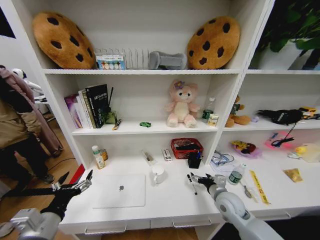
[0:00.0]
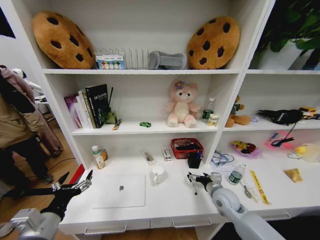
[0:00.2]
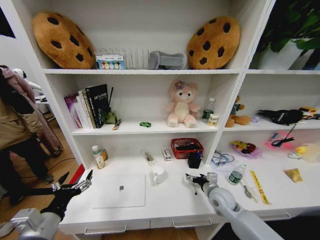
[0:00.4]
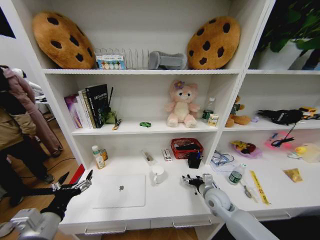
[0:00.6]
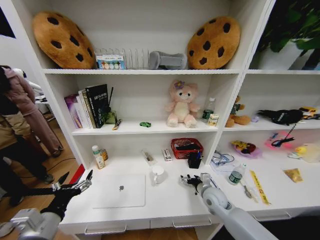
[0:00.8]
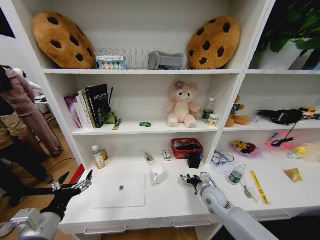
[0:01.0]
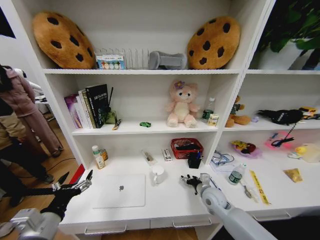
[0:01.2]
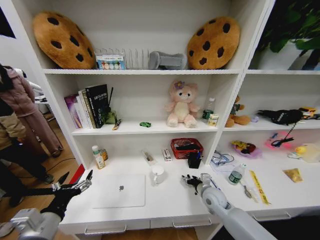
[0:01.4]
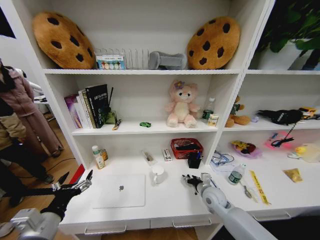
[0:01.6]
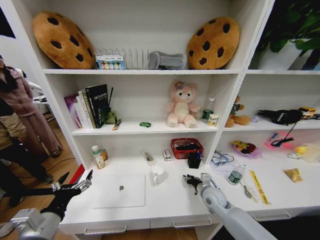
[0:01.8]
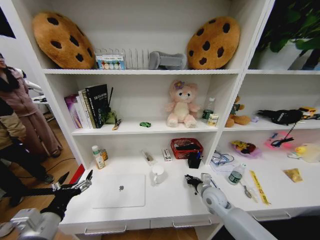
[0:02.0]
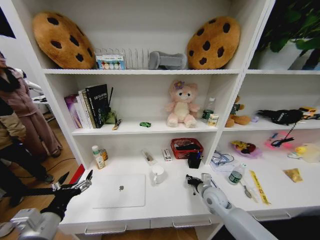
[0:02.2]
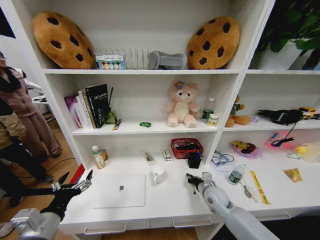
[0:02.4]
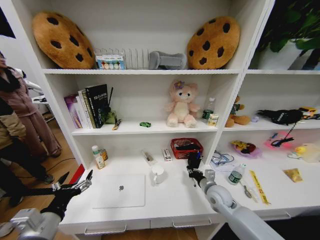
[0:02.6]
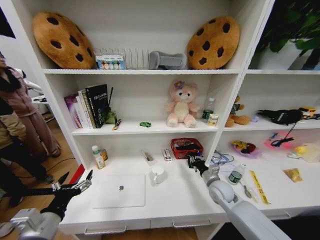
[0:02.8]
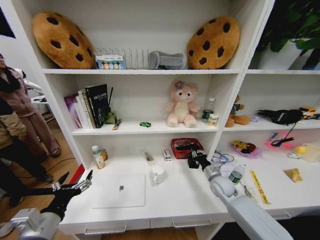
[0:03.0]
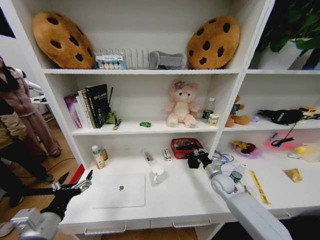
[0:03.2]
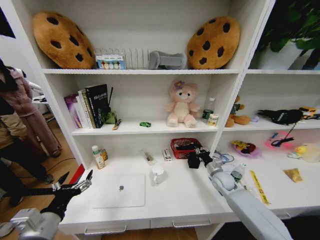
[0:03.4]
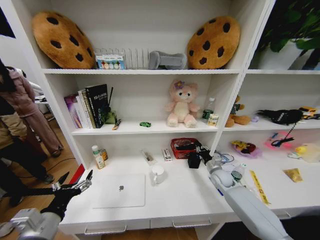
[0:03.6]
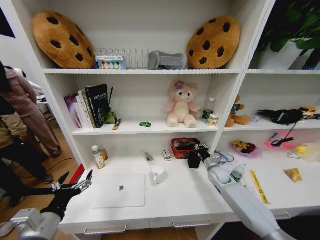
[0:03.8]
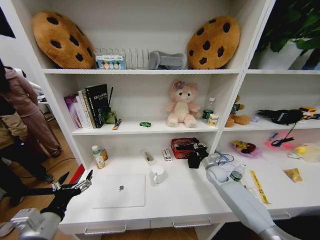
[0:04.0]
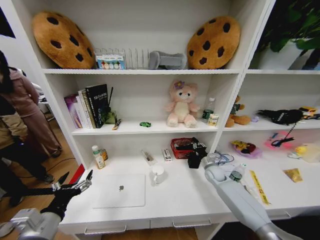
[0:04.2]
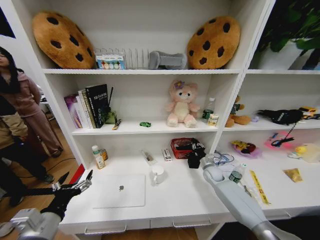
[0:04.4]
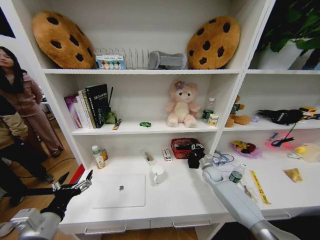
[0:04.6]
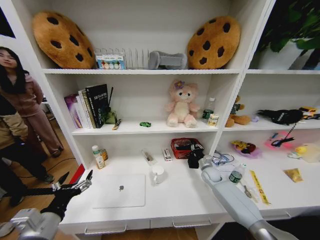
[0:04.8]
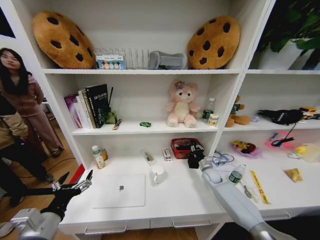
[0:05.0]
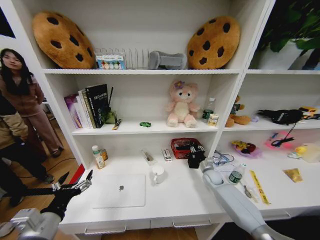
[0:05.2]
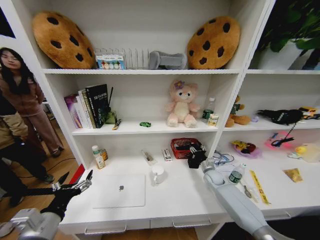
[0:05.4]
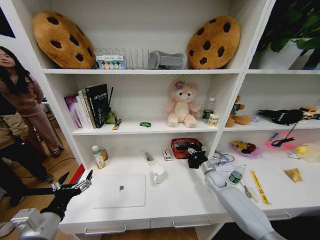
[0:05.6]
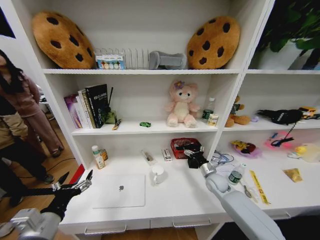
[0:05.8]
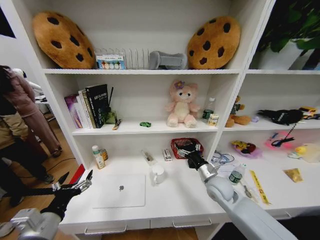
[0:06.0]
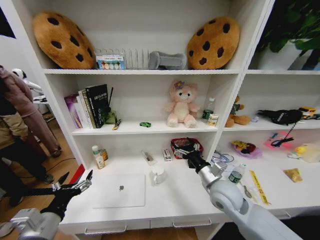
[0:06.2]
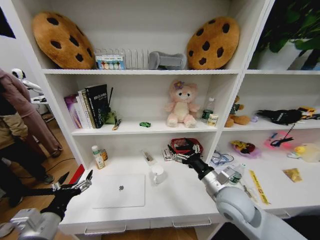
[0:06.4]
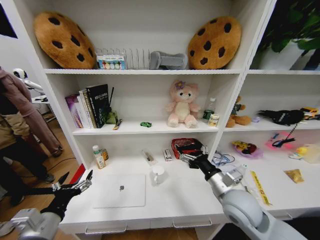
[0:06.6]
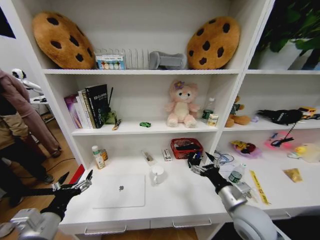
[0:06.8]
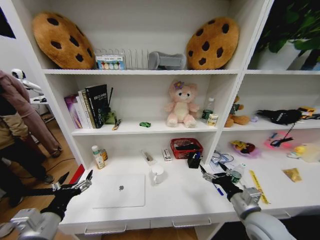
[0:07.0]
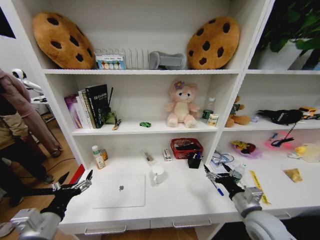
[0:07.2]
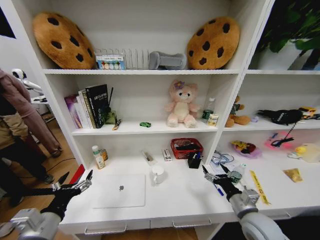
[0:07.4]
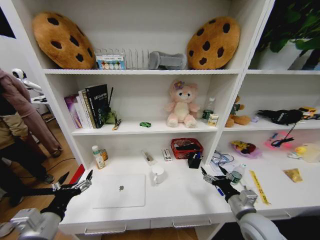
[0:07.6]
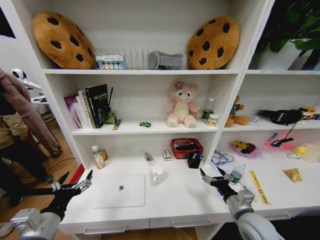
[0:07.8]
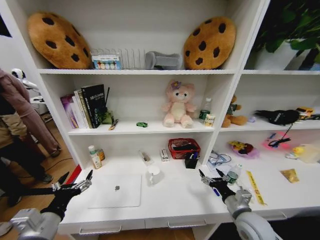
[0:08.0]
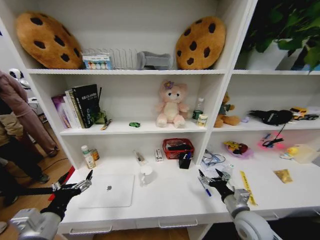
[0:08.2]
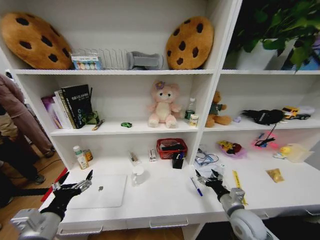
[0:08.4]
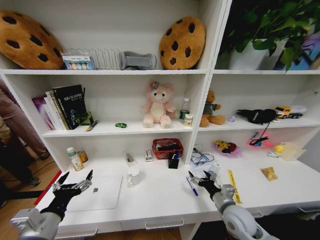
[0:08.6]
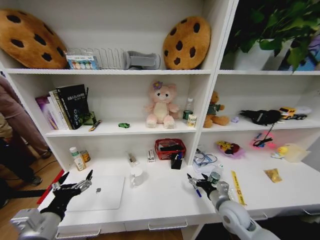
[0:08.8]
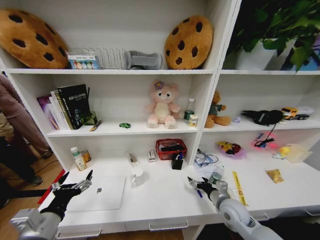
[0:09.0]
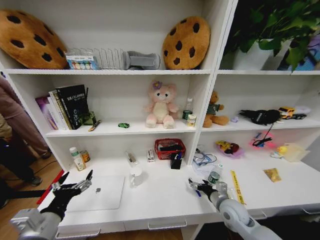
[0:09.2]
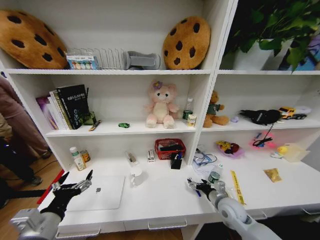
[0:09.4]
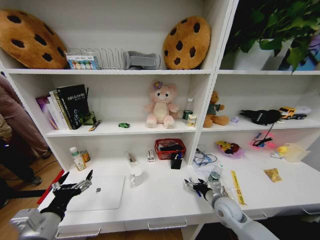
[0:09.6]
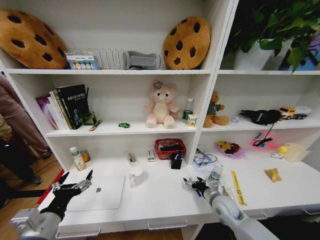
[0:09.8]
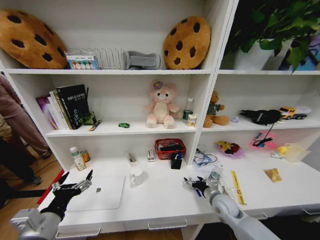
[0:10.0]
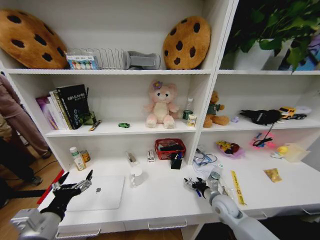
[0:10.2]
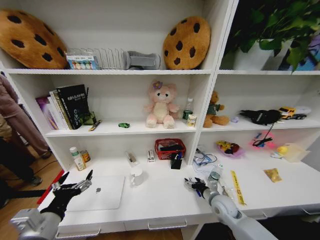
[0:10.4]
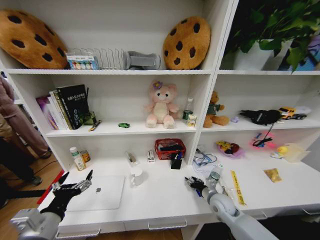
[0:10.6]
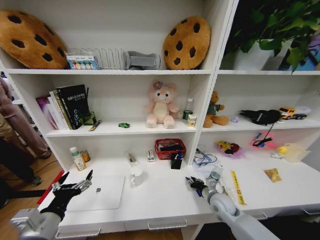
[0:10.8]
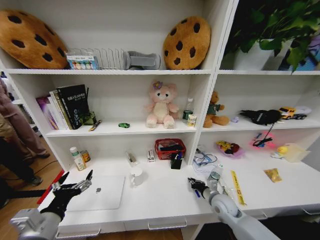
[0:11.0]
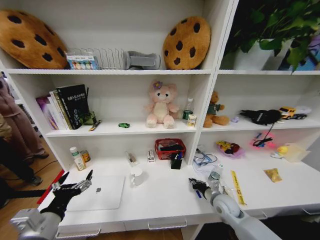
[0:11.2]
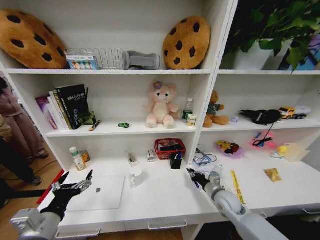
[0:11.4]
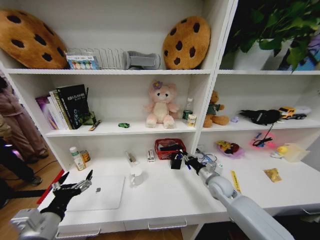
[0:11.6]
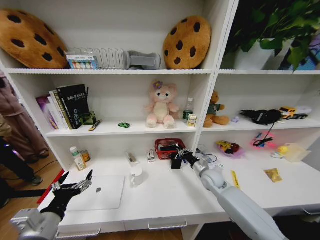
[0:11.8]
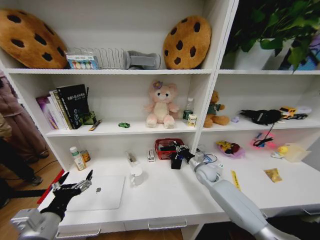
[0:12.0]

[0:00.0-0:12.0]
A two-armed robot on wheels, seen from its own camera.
Task of the whole recording: Organize the objects on the table.
0:00.0 to 0:01.6: The right gripper ends up roughly 5 cm from where it was.
0:01.6 to 0:03.0: The right gripper ends up roughly 5 cm from where it was, and closes up.
0:03.0 to 0:04.4: The right gripper heads forward, covering roughly 10 cm.
0:04.4 to 0:06.0: The right gripper is displaced backward, upward and to the left by roughly 15 cm, and opens its fingers.
0:06.0 to 0:07.6: The right gripper is displaced backward and to the right by roughly 15 cm.
0:07.6 to 0:09.0: The right gripper travels forward by roughly 5 cm.
0:09.0 to 0:10.4: The right gripper shifts by about 5 cm.
0:10.4 to 0:12.0: The right gripper travels forward by some 15 cm, and closes up.

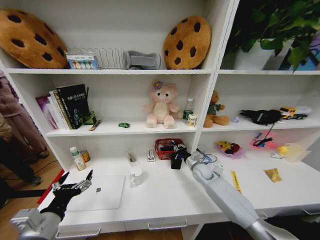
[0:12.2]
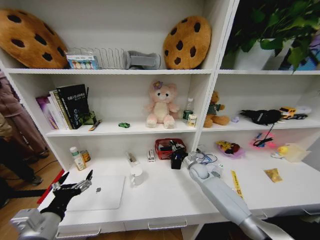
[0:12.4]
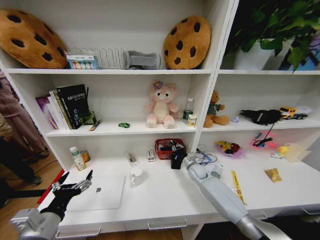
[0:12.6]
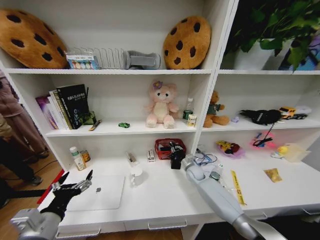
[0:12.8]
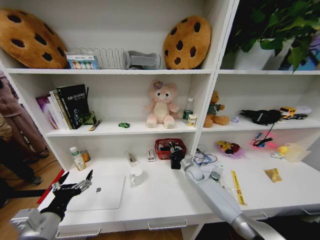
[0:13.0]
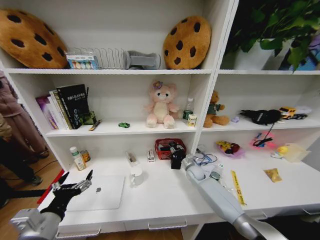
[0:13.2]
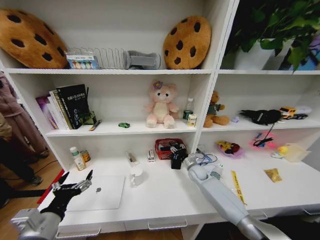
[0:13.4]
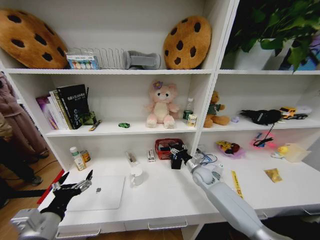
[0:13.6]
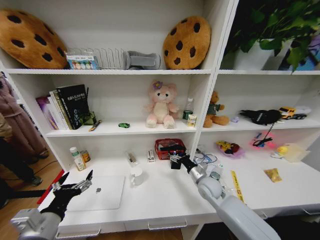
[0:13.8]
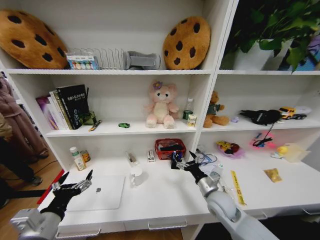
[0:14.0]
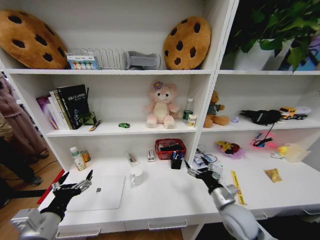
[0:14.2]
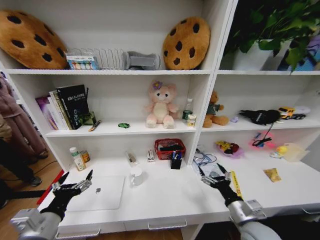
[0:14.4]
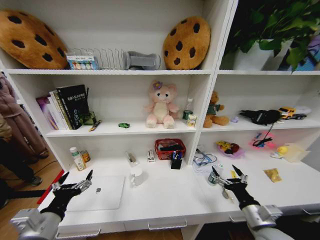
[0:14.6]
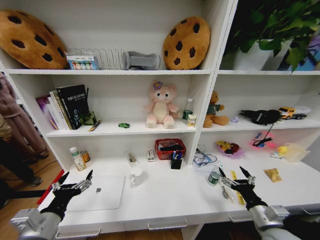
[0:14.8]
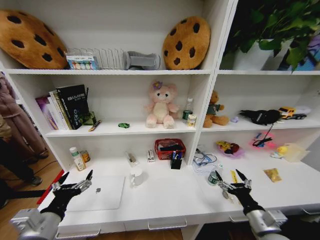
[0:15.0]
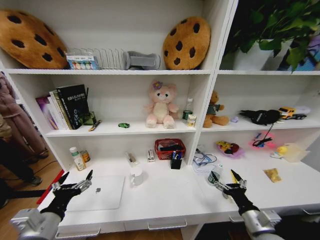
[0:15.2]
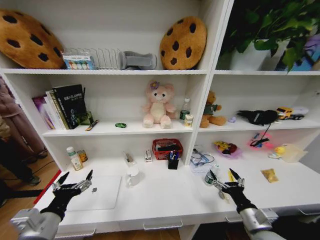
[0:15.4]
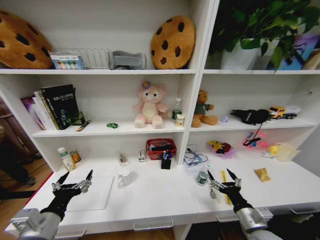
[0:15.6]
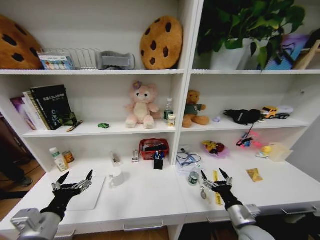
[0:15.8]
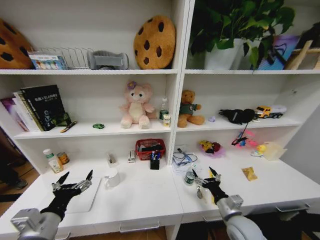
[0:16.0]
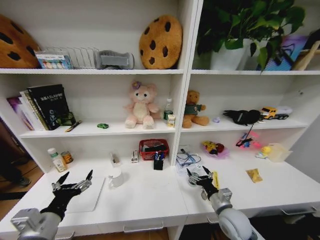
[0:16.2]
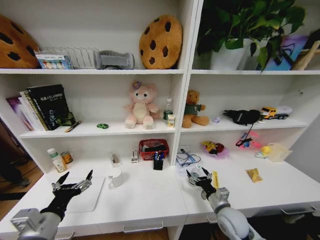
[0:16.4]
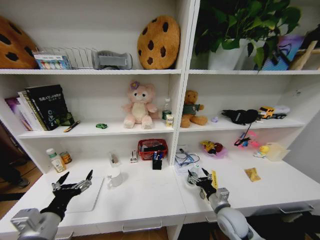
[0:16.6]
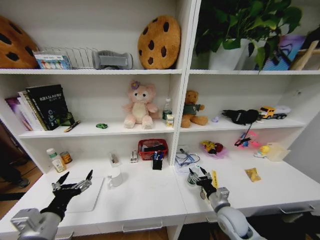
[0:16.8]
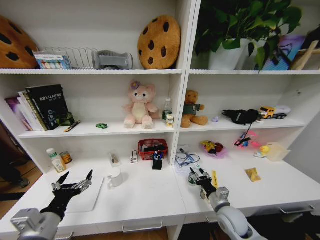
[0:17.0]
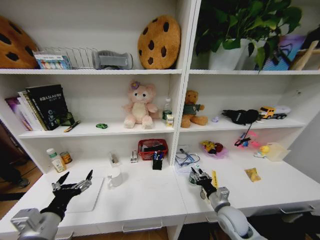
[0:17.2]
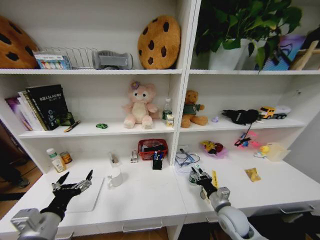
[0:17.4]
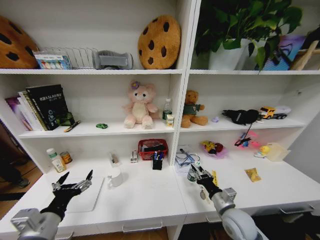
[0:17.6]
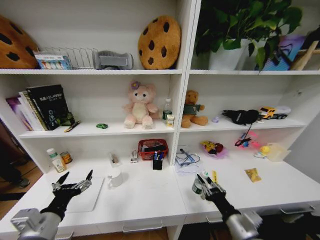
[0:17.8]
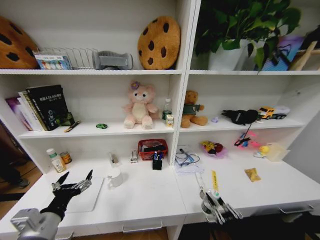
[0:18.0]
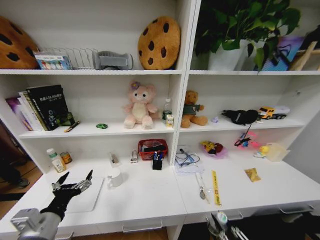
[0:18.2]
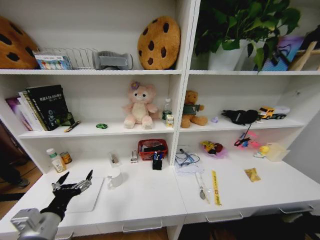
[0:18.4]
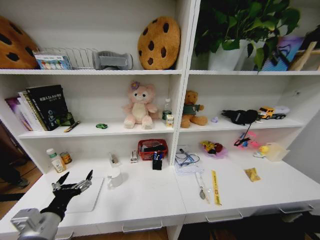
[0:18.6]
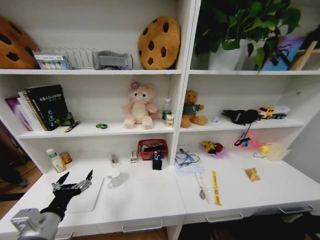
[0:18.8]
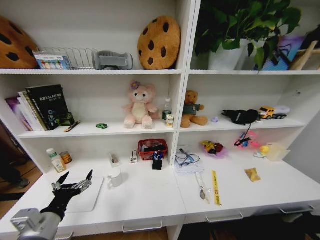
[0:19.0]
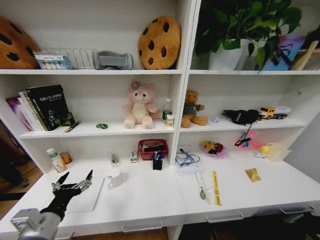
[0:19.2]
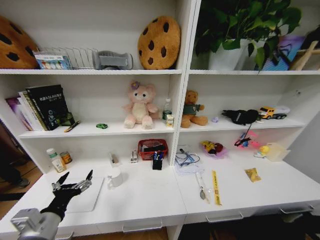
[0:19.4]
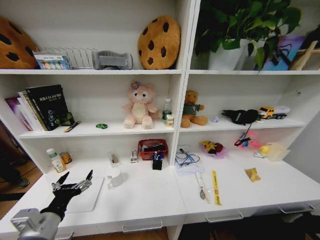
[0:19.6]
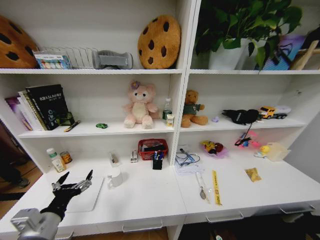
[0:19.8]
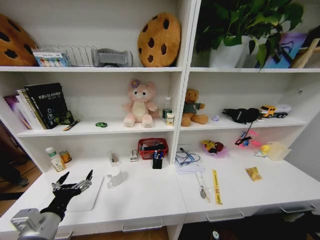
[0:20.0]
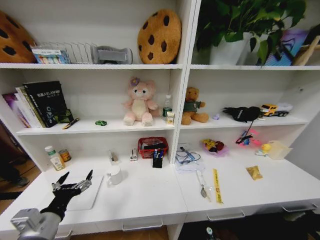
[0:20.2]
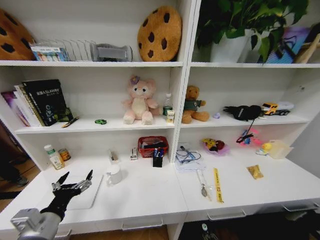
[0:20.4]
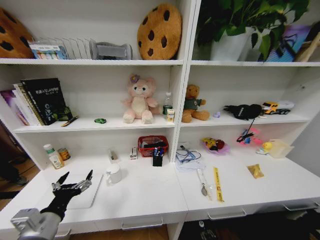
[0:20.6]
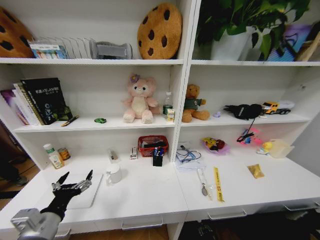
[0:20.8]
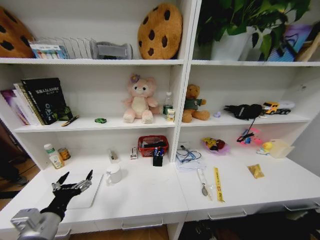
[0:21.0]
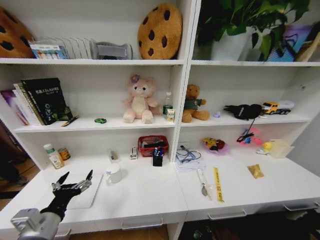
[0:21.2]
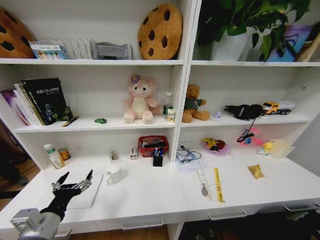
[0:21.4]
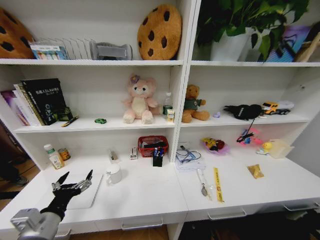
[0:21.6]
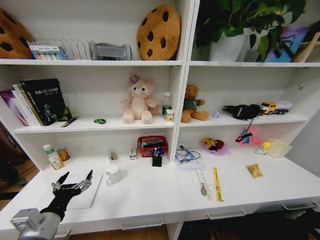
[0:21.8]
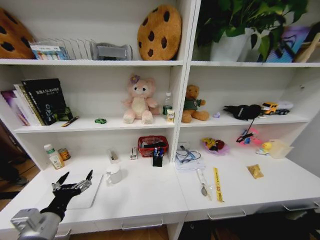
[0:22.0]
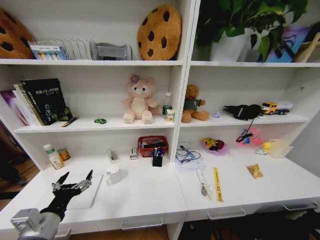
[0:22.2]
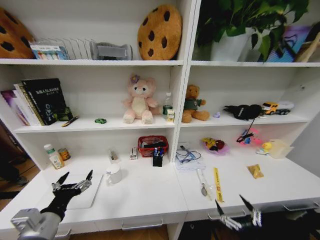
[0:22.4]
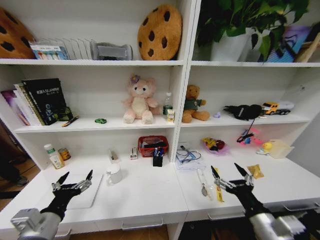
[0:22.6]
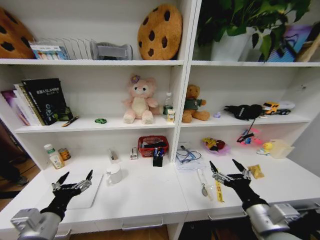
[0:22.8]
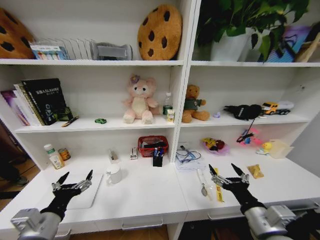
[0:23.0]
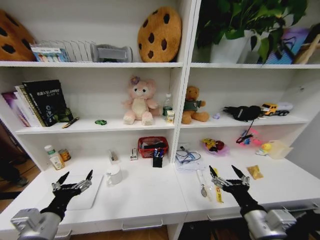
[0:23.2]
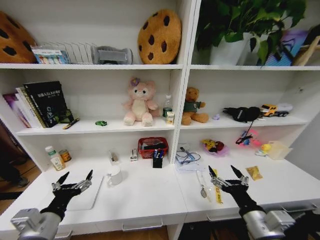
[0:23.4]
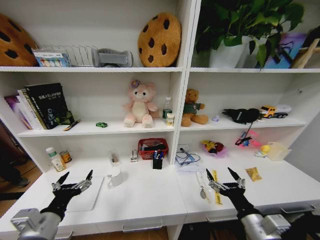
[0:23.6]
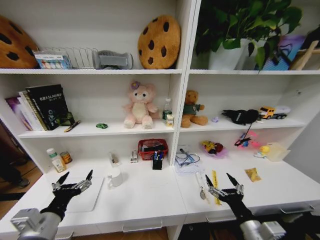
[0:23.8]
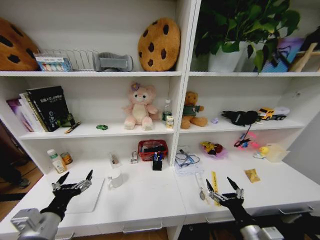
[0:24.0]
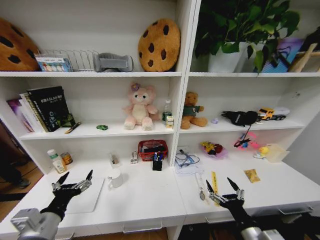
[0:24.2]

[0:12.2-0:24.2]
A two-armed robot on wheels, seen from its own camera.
Task of the whole recording: Organize the objects on the table.
0:12.2 to 0:13.8: The right gripper heads backward, covering about 10 cm, and opens up.
0:13.8 to 0:15.2: The right gripper travels backward and to the right by some 20 cm.
0:15.2 to 0:16.6: The right gripper shifts approximately 10 cm forward, to the left and downward.
0:16.6 to 0:18.2: The right gripper goes some 25 cm backward, and closes its fingers.
0:18.2 to 0:19.8: The right gripper moves downward, approximately 30 cm.
0:19.8 to 0:21.2: The right gripper heads forward and downward, covering about 15 cm.
0:21.2 to 0:22.6: The right gripper moves upward, about 50 cm, and opens its fingers.
0:22.6 to 0:24.2: The right gripper is displaced downward by some 5 cm.
